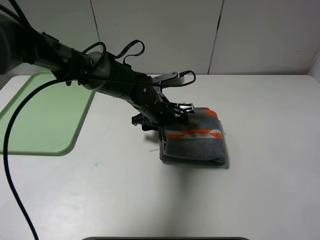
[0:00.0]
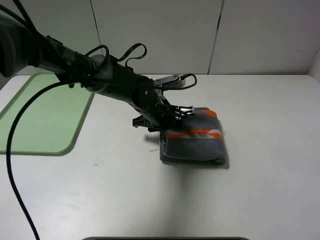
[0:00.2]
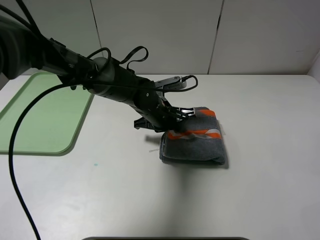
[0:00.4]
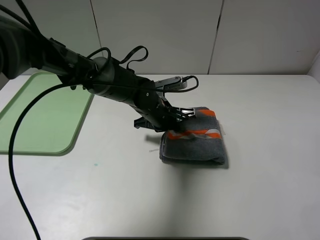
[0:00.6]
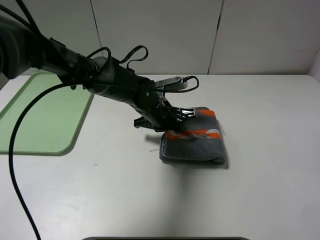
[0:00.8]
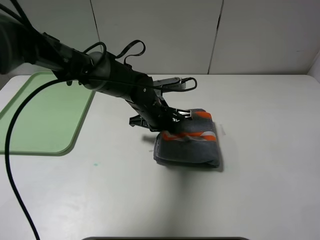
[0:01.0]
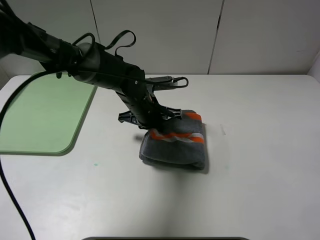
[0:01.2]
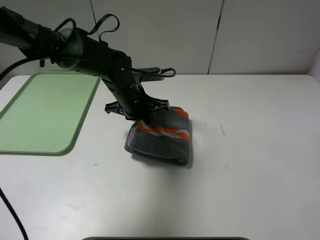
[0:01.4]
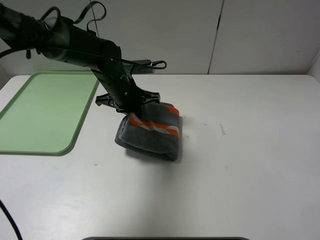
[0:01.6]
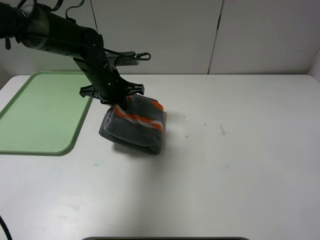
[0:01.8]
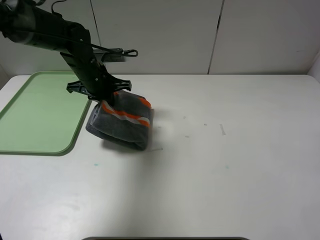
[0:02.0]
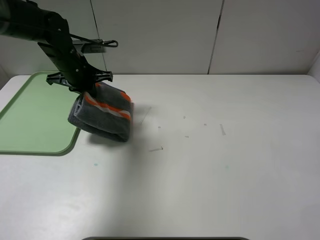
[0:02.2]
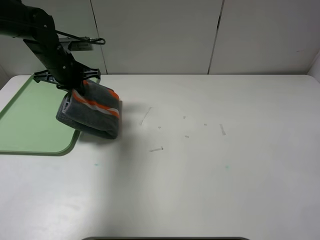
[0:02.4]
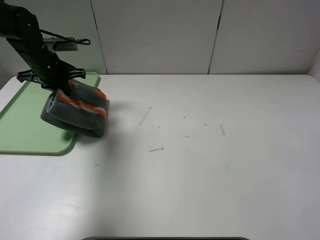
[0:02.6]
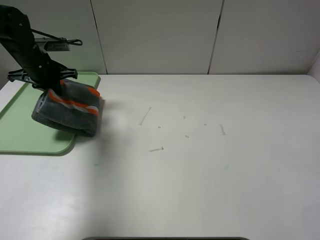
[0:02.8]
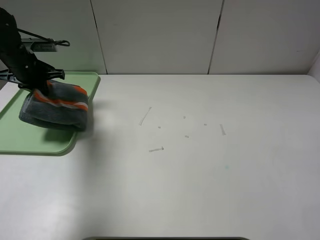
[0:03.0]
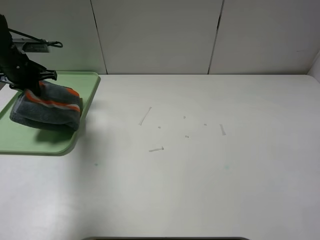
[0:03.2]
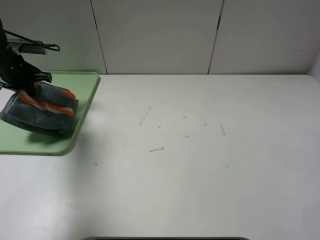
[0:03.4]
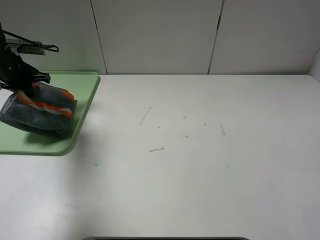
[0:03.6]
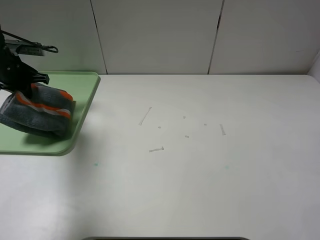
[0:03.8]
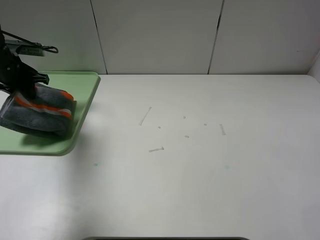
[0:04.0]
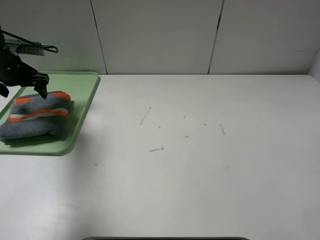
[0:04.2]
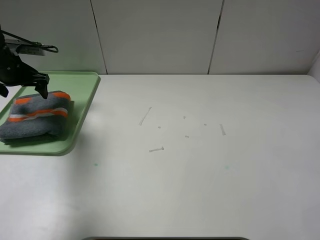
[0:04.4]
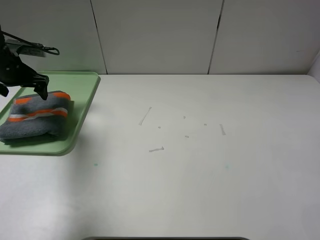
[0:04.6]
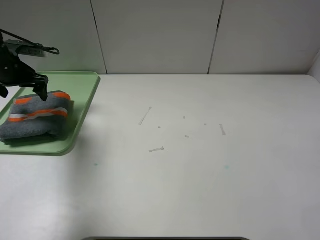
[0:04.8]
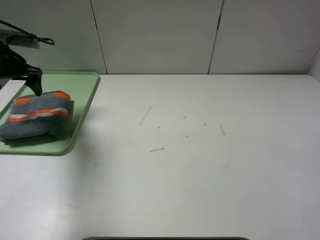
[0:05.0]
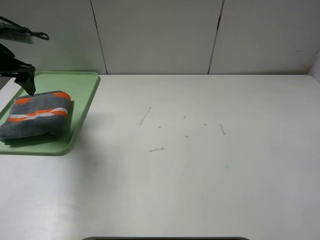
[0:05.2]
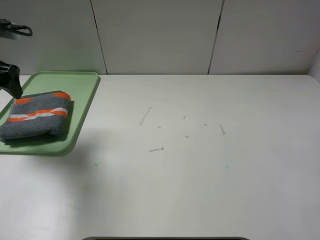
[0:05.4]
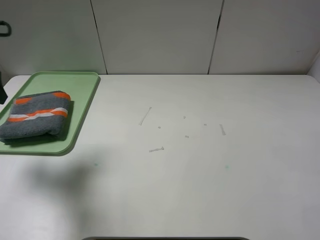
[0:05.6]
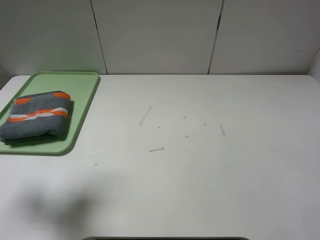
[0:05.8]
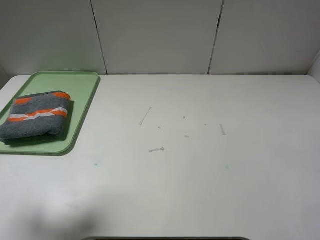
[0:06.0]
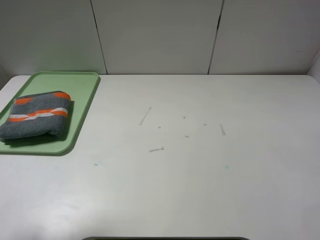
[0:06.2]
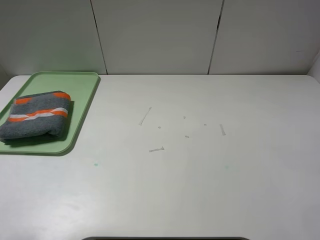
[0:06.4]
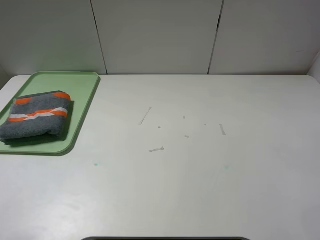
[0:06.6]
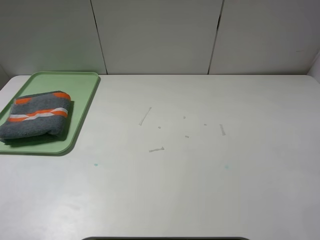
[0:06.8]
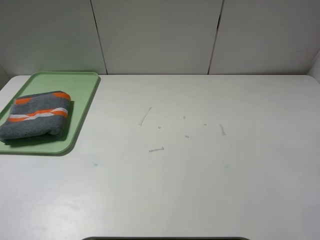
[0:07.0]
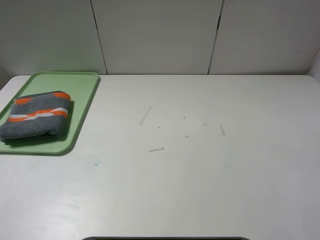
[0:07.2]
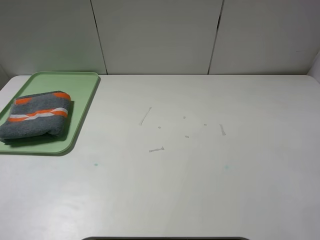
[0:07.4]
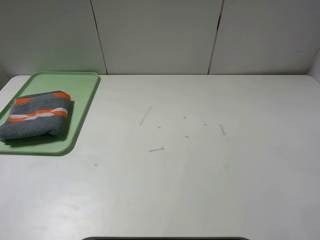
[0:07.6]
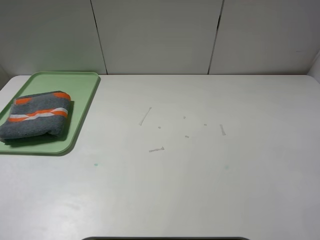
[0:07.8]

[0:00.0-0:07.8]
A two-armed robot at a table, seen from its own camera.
Step, 0:00.0 to 0:04.0: Place the folded grey towel on the tray with the left gripper.
0:00.0 to 0:01.6: The left gripper moves to the left, roughly 10 cm, and closes its fingers.
0:01.6 to 0:03.2: The left gripper goes some 25 cm to the left.
0:03.2 to 0:04.6: The left gripper opens up.
0:04.6 to 0:06.2: The left gripper travels backward by some 30 cm.
0:06.2 to 0:07.8: The left gripper shifts roughly 10 cm backward.
